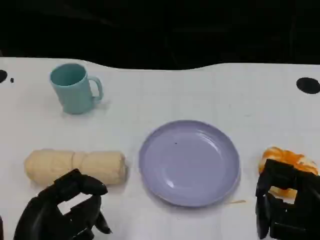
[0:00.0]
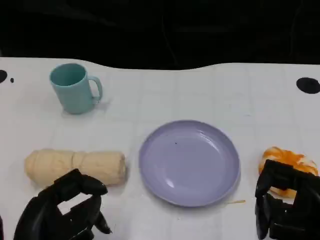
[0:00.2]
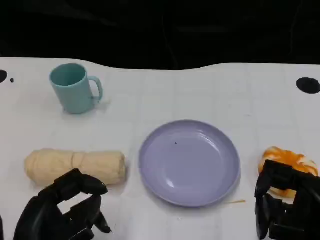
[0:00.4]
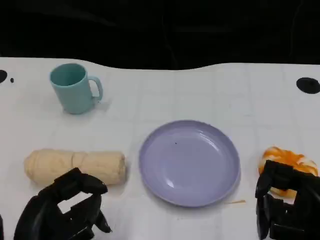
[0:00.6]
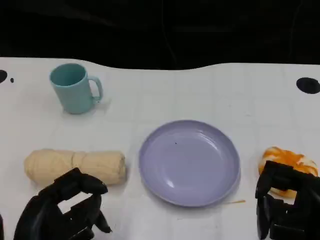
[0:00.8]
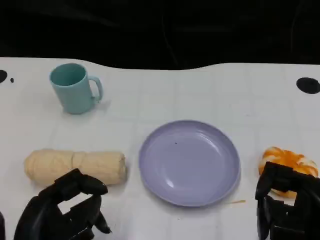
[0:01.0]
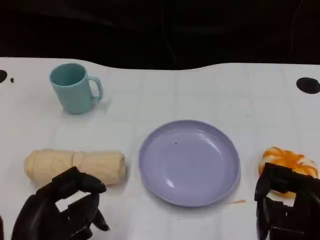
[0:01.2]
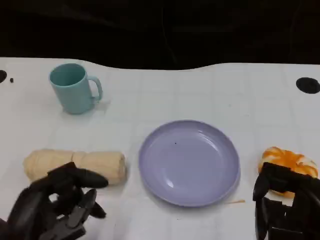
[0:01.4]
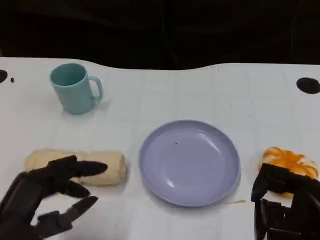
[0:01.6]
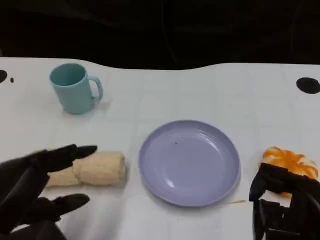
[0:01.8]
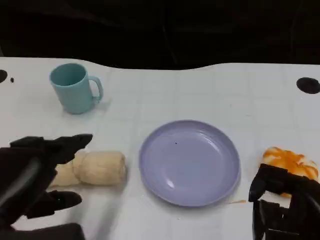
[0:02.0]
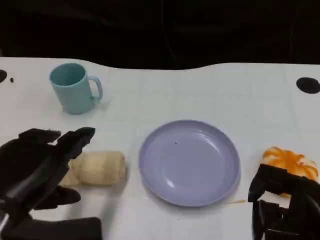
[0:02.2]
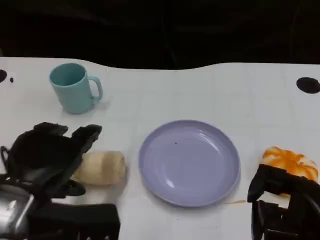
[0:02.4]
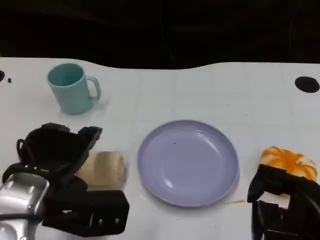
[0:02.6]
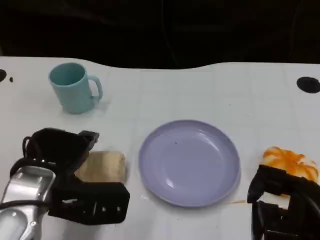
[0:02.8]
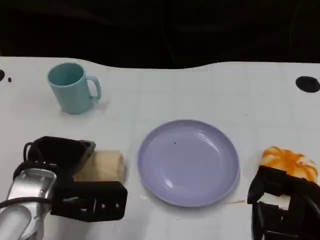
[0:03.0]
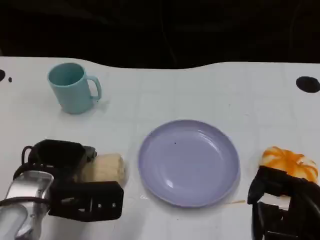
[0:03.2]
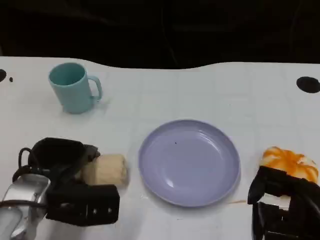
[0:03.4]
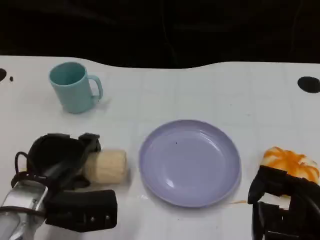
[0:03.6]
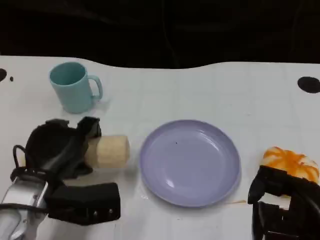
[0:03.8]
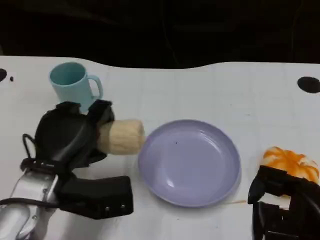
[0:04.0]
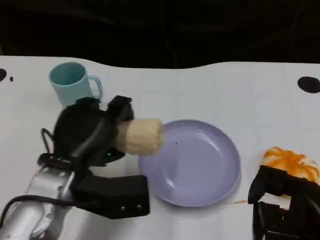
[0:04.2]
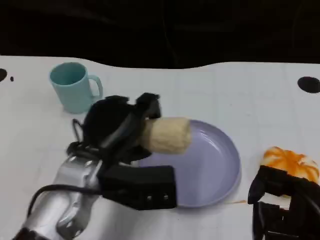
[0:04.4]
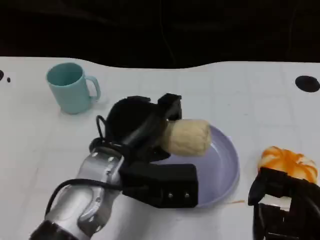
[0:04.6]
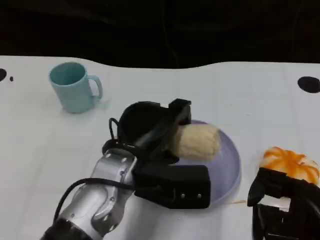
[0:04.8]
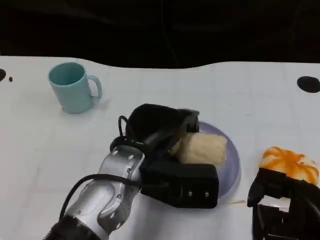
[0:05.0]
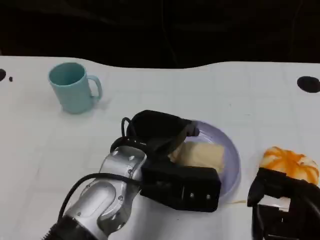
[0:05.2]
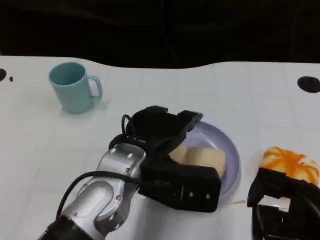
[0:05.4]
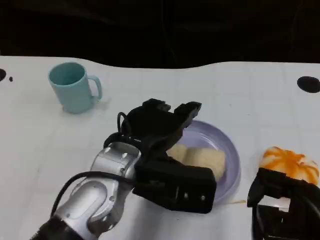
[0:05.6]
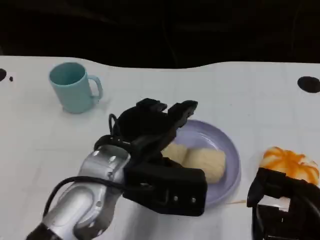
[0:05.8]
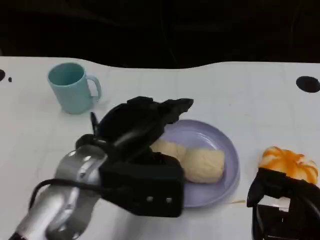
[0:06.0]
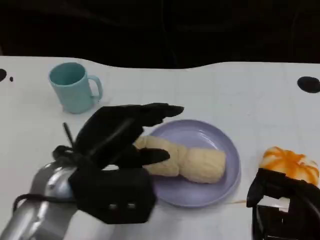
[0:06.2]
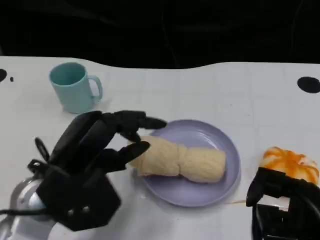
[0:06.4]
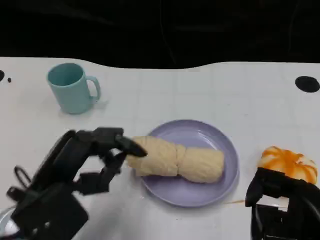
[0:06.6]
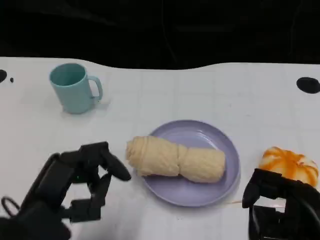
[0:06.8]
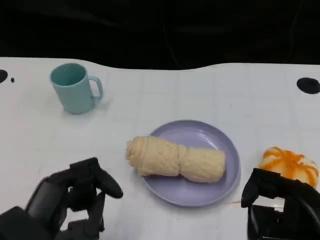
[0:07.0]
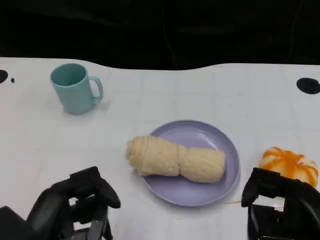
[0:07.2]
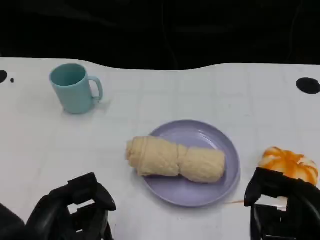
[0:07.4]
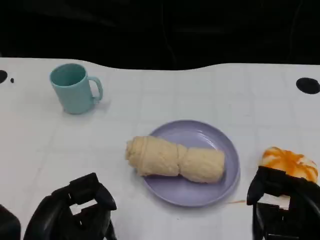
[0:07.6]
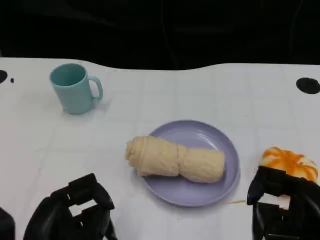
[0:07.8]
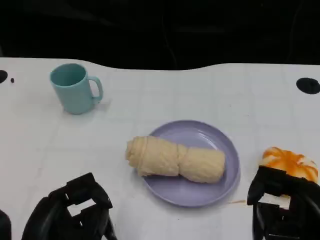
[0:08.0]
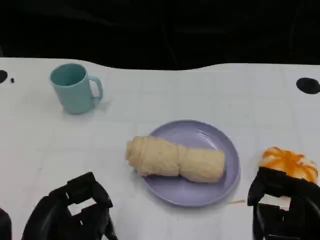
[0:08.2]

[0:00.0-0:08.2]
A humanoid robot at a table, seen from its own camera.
Task of the whole recording: Grasp the towel on the left side of the plate with the left hand and place it into the plate.
0:01.6 to 0:03.2: The left hand heads forward, covering some 10 cm.
0:03.2 to 0:05.0: The left hand goes approximately 15 cm to the right.
0:05.0 to 0:06.6: The left hand travels to the left and backward by approximately 15 cm.
0:06.6 to 0:08.2: The left hand travels backward by some 5 cm.
